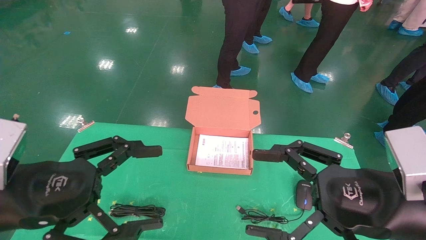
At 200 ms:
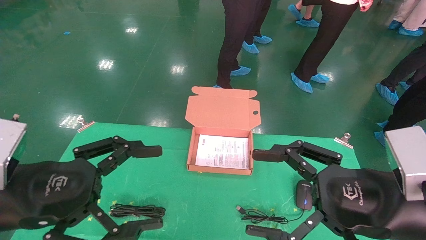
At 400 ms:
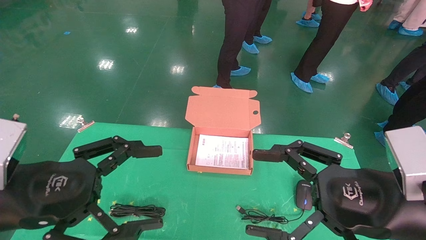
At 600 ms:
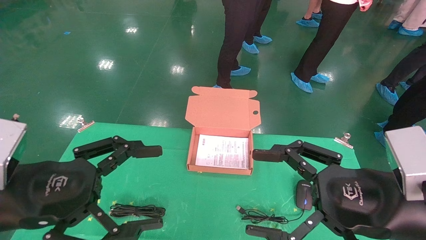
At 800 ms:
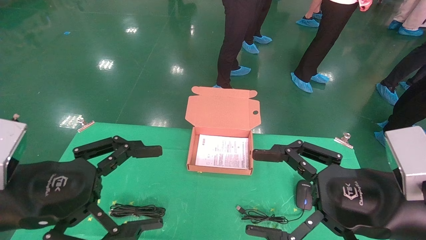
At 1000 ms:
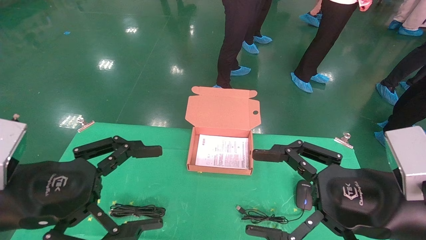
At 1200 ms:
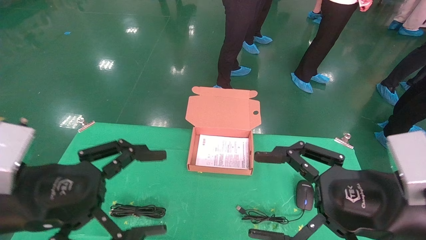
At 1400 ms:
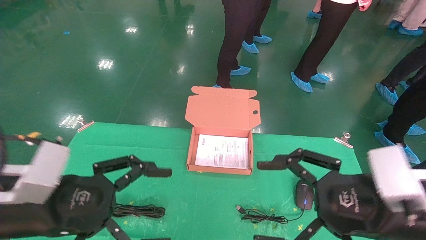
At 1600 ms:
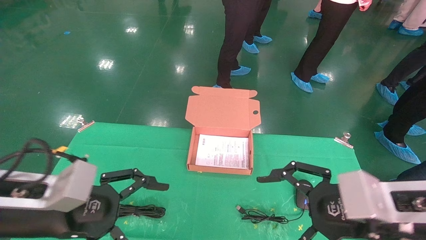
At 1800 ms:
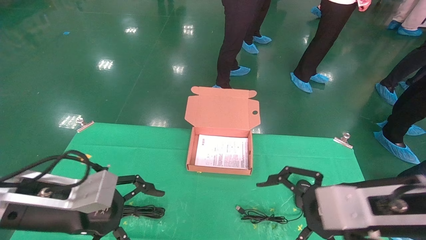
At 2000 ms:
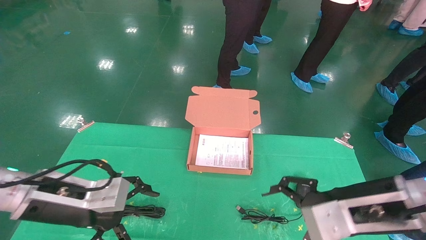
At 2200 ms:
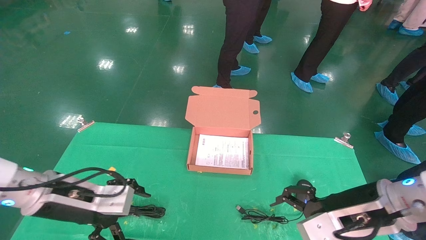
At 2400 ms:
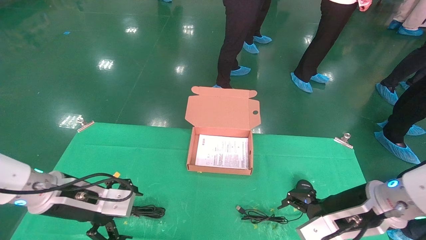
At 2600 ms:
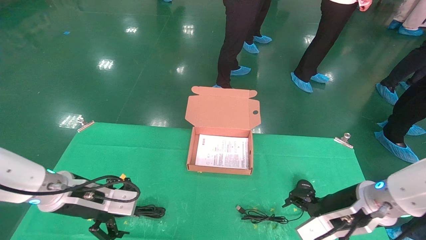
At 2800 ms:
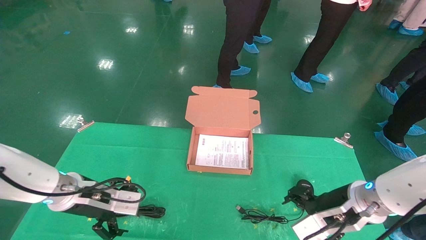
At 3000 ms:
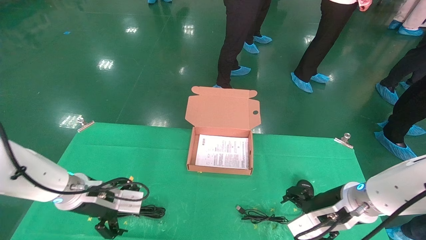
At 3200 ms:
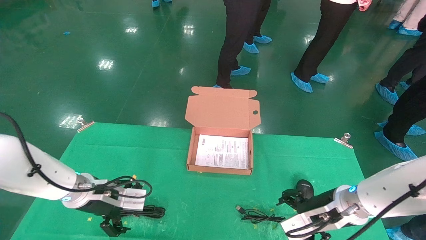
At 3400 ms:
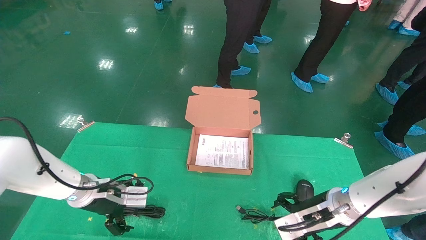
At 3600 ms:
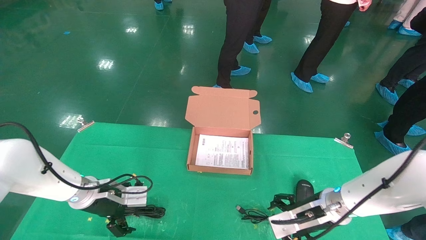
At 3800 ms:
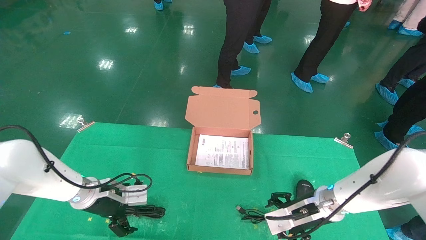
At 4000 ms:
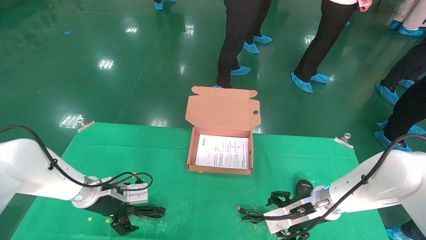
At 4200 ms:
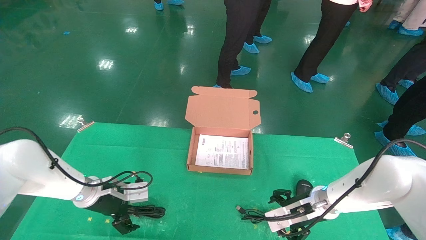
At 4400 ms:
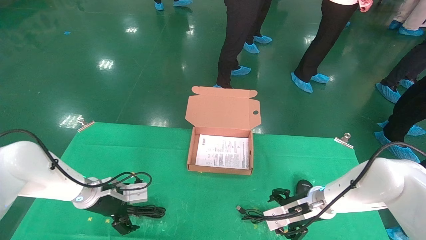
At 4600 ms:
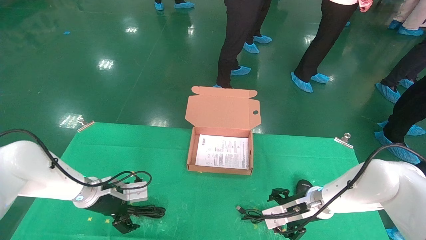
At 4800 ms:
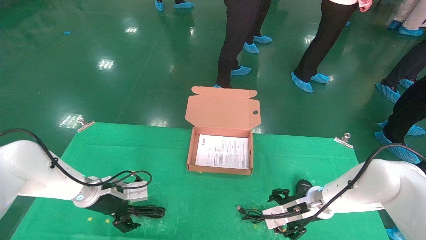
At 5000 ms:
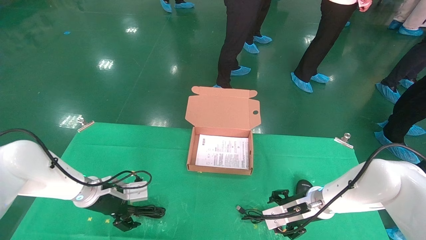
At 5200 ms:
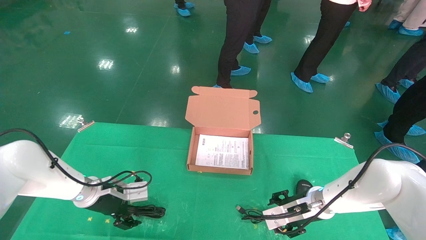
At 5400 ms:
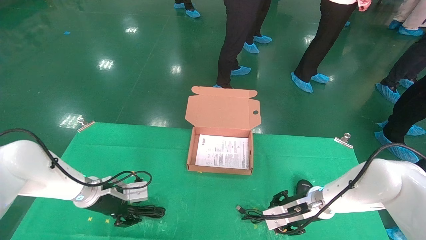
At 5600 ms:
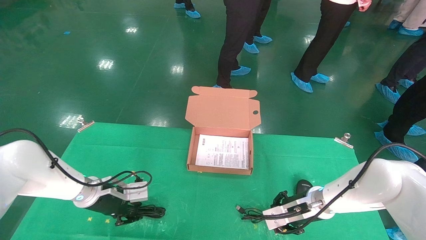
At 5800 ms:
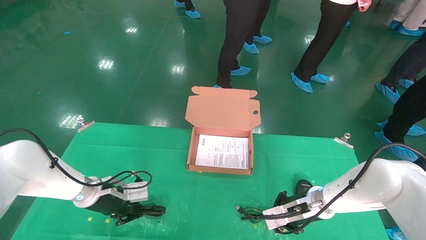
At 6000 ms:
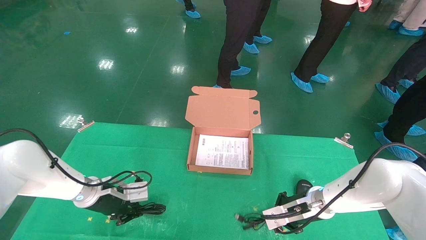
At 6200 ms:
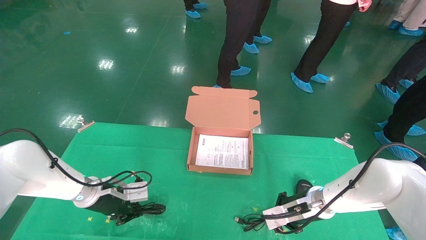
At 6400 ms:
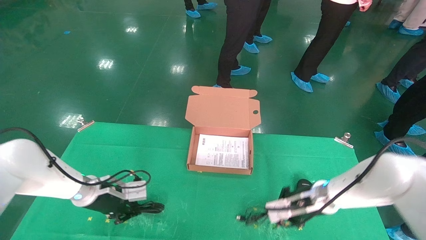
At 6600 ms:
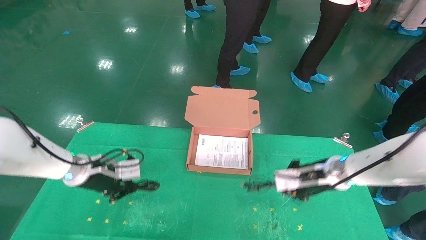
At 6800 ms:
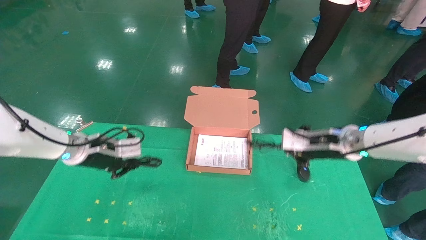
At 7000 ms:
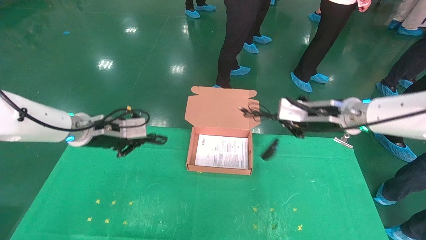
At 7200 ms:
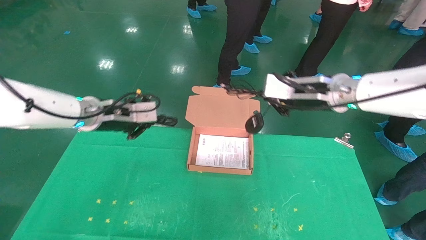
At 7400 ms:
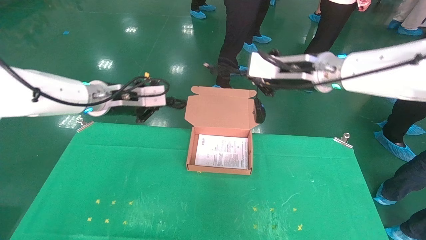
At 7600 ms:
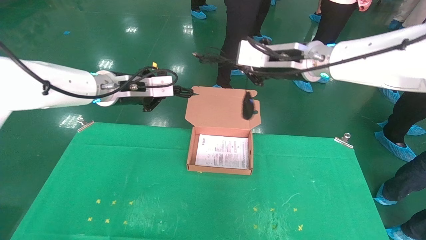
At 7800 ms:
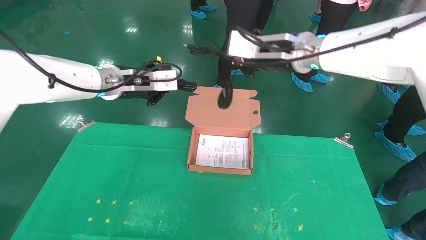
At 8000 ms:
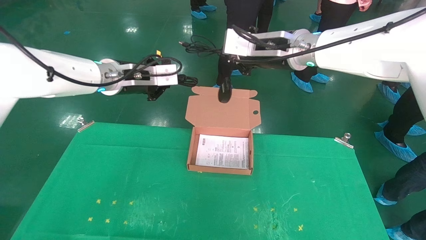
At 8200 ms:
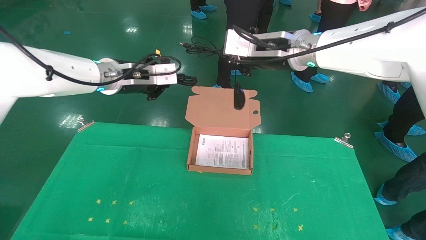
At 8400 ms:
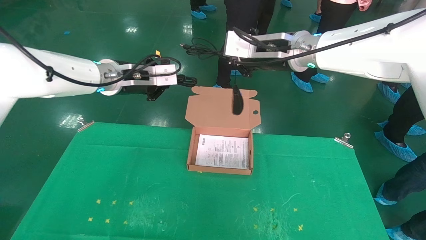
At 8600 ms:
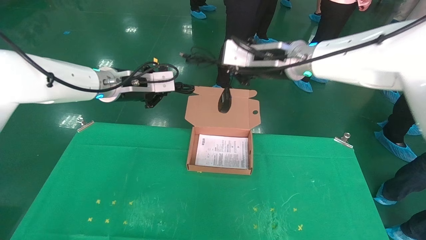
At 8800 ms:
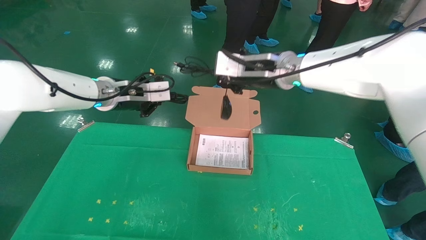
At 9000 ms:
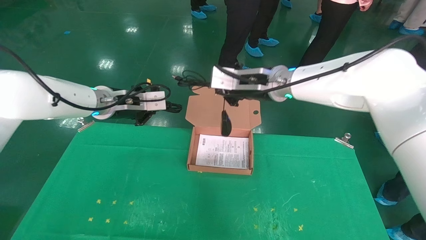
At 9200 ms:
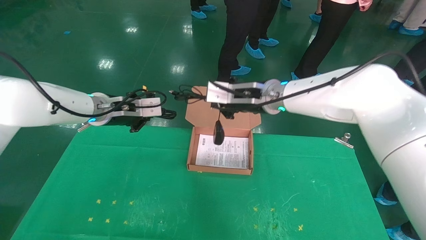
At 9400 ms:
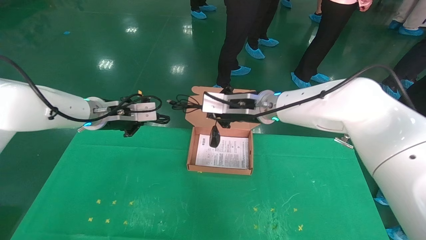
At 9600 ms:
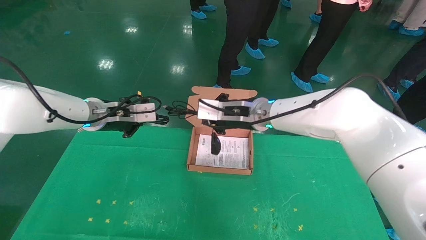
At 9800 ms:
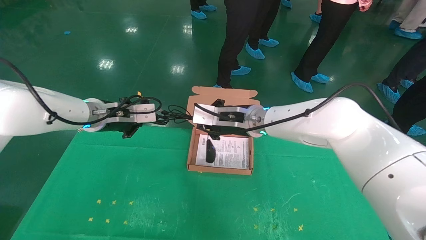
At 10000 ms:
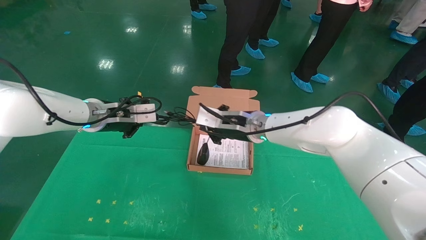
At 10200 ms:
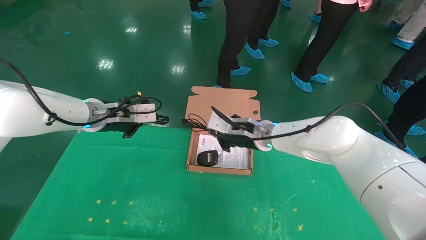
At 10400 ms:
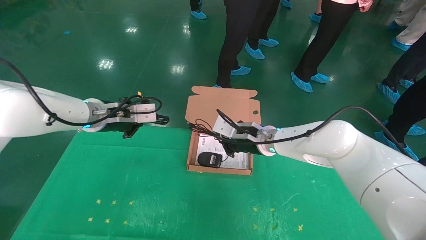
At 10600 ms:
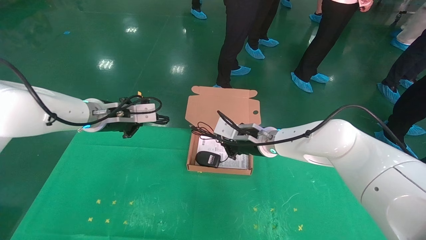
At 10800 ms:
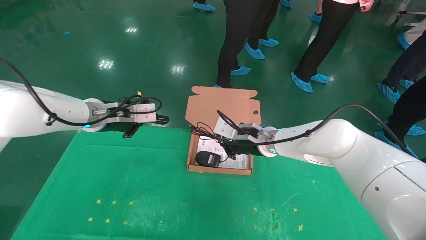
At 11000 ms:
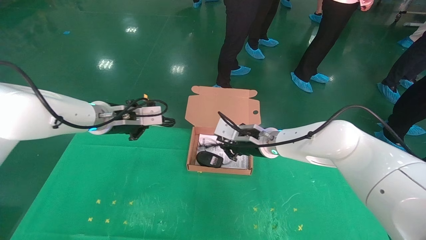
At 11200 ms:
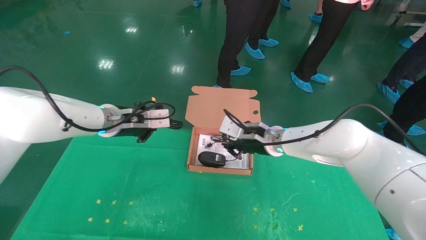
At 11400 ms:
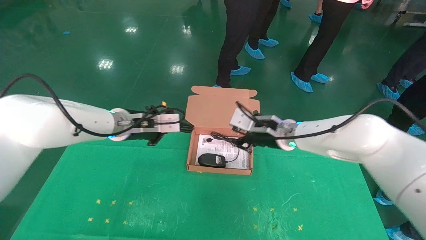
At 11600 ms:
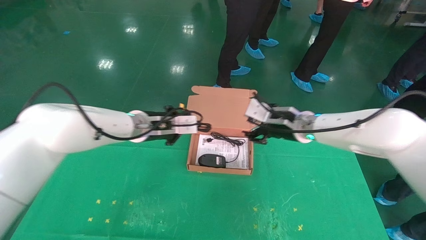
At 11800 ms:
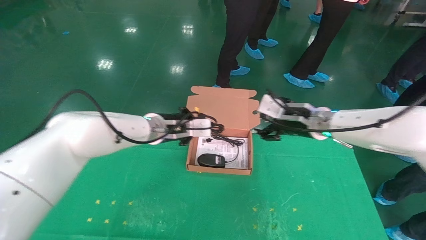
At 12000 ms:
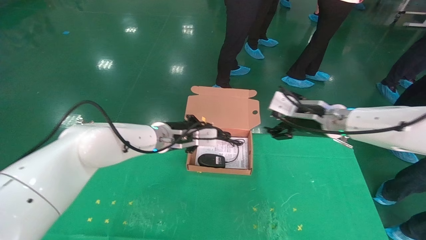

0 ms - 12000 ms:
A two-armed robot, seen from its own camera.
Task of the whole recording: grasp data cable left put into box grasp mouse right put into box.
Step, 1200 ms - 6600 ms: Grab and pick up both the mouse and power cord from the accessory packaging area at the same time.
0 ms - 1600 ms: The left gripper shifts by approximately 5 cm.
1600 ms - 3000 ms: Both grippers travel together forward and downward, some 15 cm.
3000 ms - 4400 ms: The left gripper travels forward by approximately 5 cm. The right gripper moves forward and downward, approximately 10 cm.
4400 ms - 6000 ms: The right gripper closes up. The left gripper closes its fingers.
6000 ms - 7600 ms: The grippers both shift upward by approximately 30 cm.
7600 ms - 9000 ms: The right gripper heads to the left, covering some 5 cm.
9000 ms - 10400 ms: The right gripper moves downward, approximately 15 cm.
10400 ms - 12000 ms: The right gripper is displaced to the right and upward by some 15 cm, and opens its fingers; the left gripper is displaced to the right and downward by about 15 cm.

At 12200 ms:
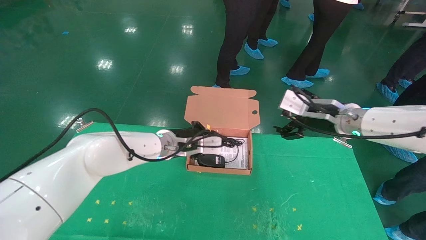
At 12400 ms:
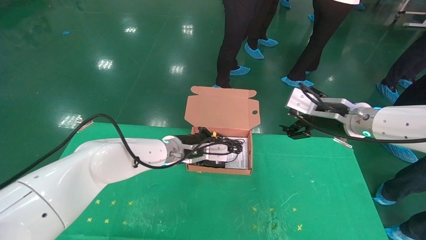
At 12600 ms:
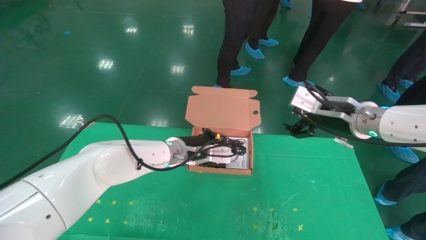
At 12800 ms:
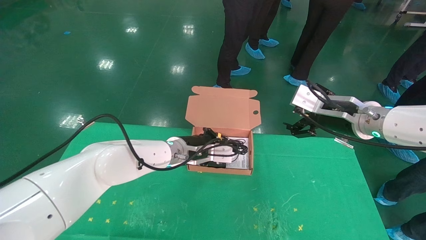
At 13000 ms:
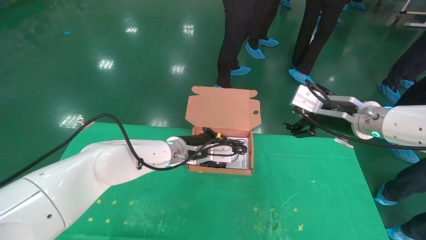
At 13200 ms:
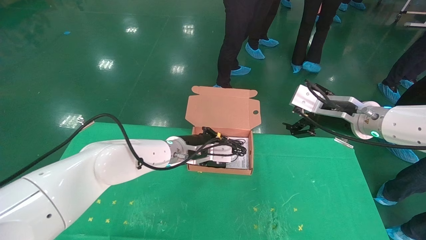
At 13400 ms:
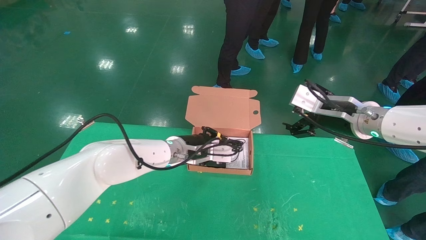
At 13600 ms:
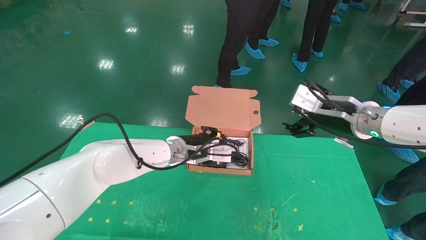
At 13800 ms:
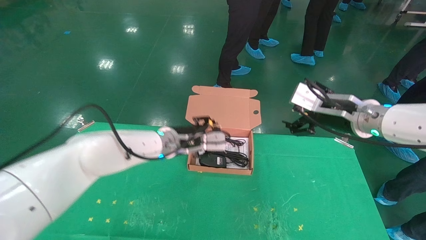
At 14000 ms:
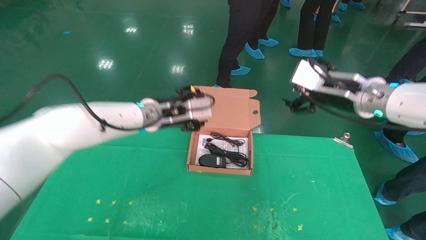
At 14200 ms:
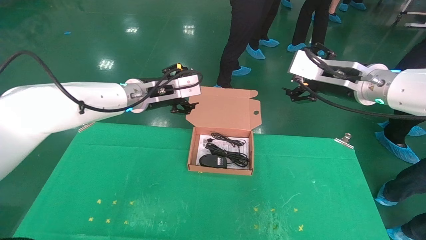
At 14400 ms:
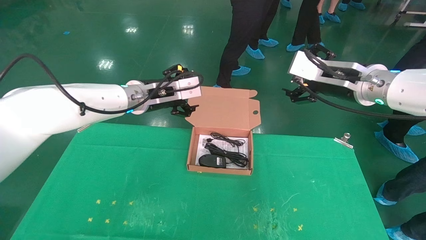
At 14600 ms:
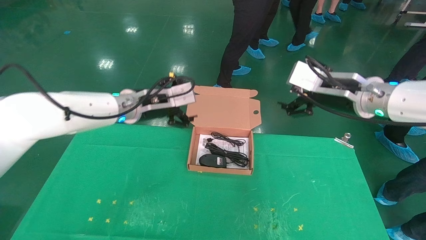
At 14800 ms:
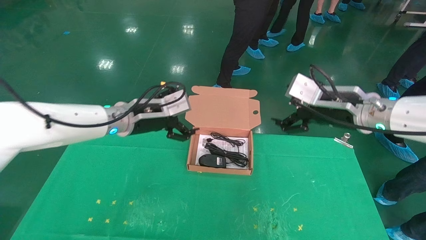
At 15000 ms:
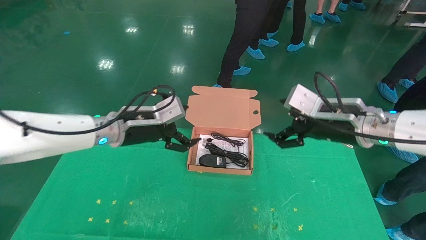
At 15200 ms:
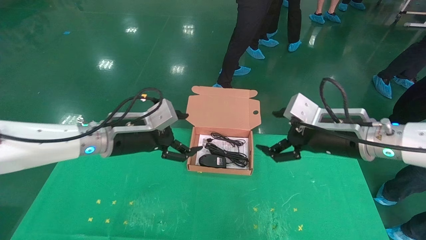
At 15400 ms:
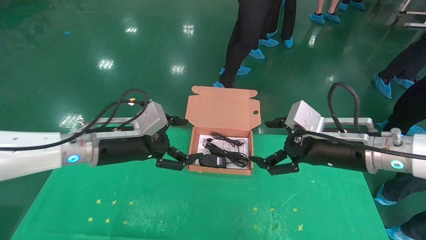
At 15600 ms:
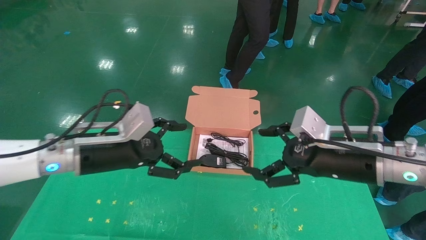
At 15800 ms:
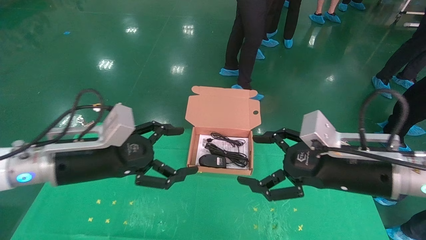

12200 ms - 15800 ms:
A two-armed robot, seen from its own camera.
Task of the whole recording: grasp data cable left put into box grasp mouse right put into box.
12200 ms - 14000 ms: The grippers both shift upward by approximately 10 cm. The left gripper opens up.
14000 ms - 15800 ms: The left gripper travels backward and to the left by roughly 20 cm; the right gripper heads backward and downward, covering some 15 cm.
